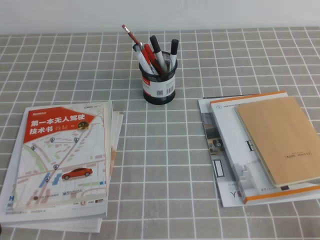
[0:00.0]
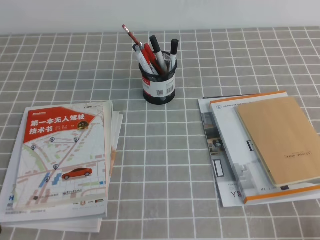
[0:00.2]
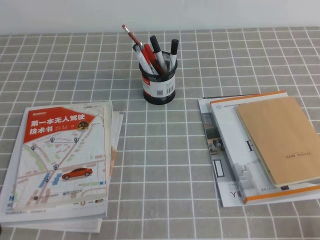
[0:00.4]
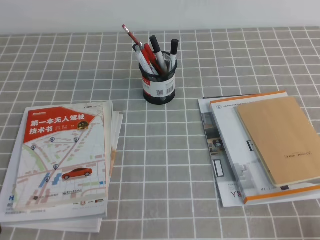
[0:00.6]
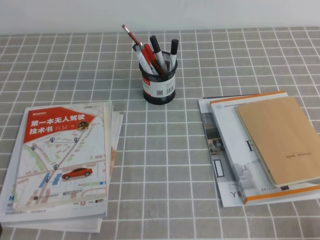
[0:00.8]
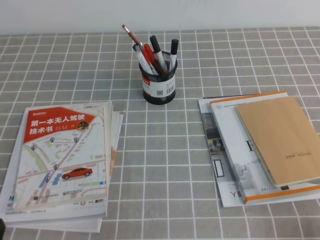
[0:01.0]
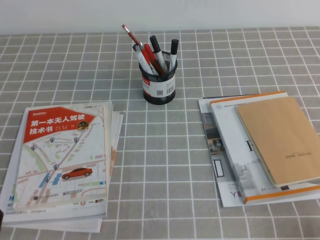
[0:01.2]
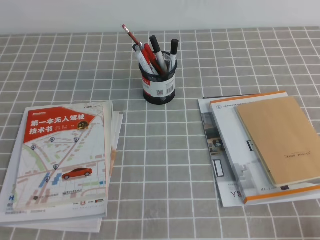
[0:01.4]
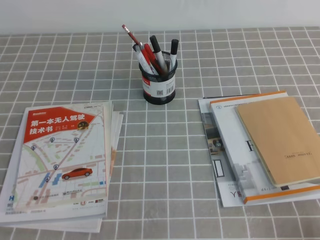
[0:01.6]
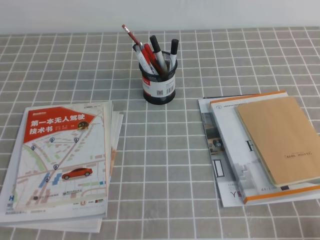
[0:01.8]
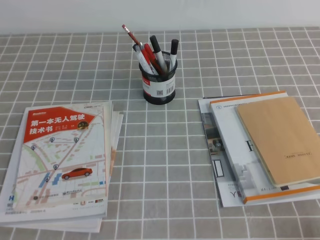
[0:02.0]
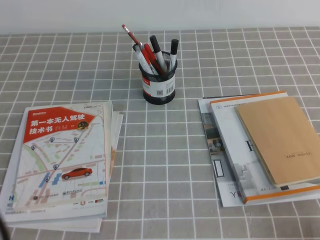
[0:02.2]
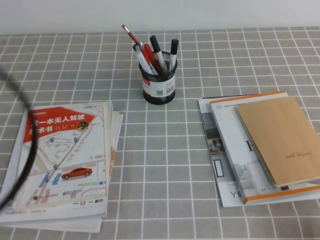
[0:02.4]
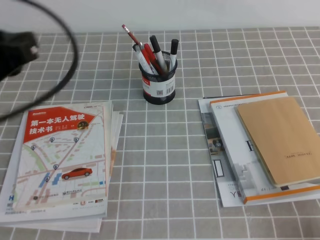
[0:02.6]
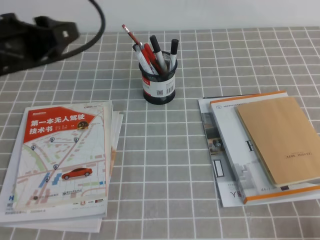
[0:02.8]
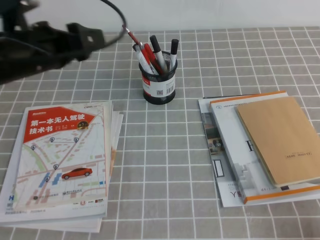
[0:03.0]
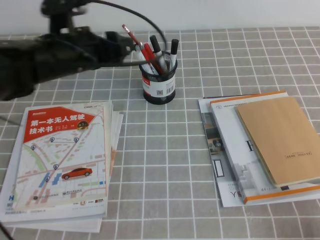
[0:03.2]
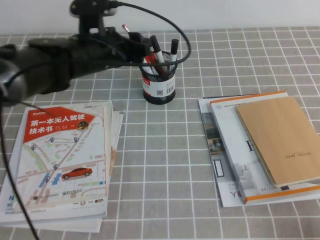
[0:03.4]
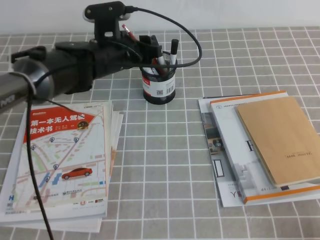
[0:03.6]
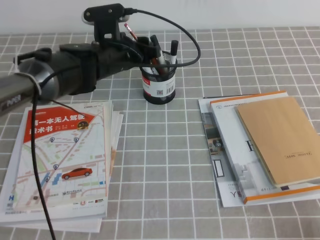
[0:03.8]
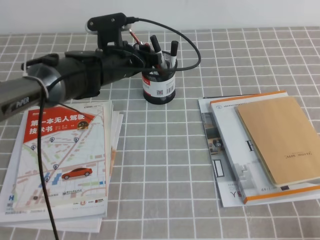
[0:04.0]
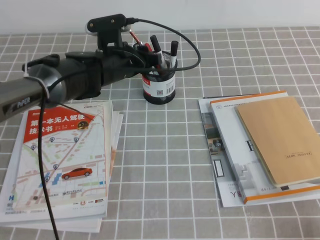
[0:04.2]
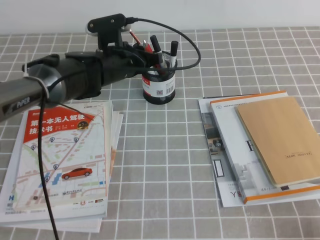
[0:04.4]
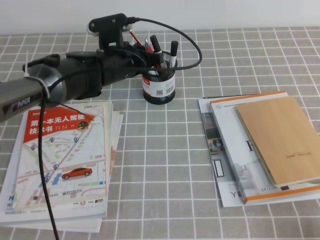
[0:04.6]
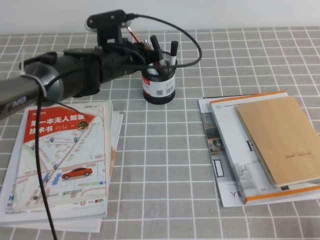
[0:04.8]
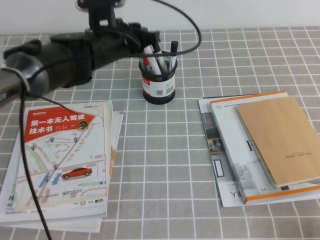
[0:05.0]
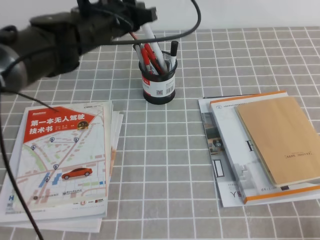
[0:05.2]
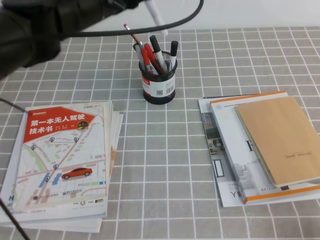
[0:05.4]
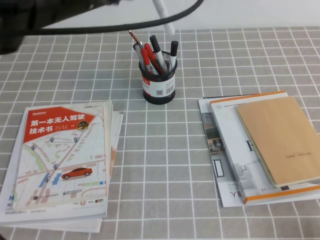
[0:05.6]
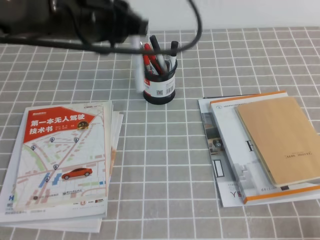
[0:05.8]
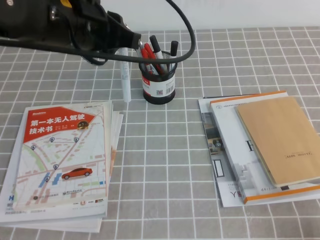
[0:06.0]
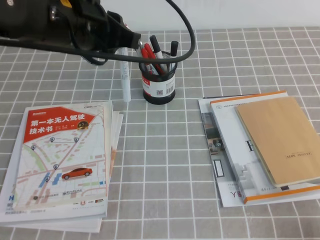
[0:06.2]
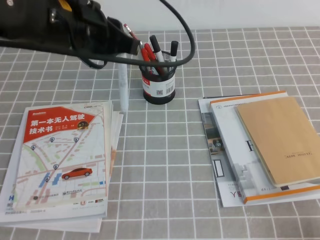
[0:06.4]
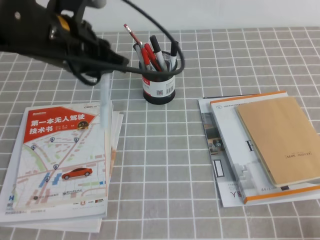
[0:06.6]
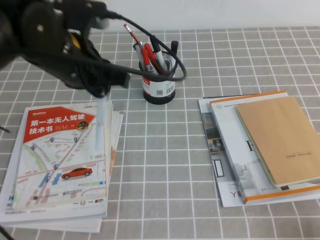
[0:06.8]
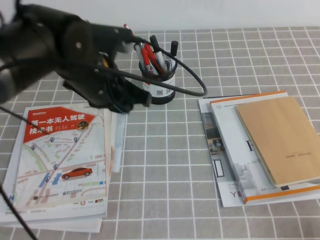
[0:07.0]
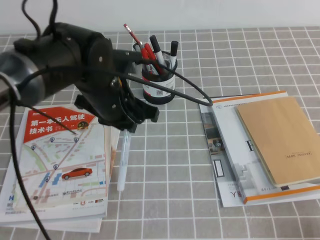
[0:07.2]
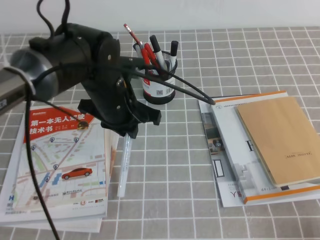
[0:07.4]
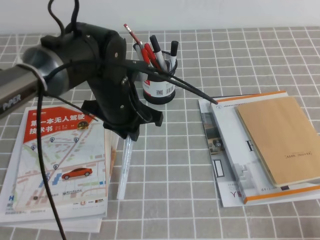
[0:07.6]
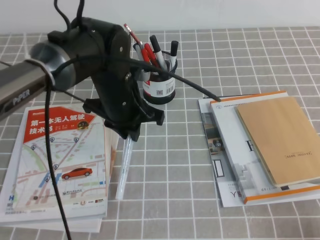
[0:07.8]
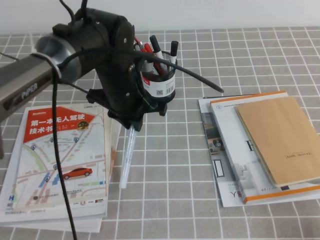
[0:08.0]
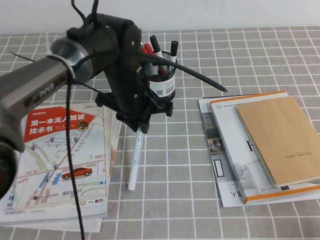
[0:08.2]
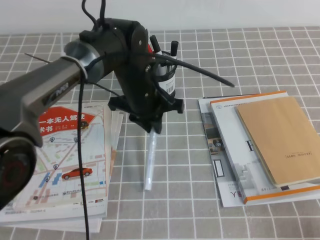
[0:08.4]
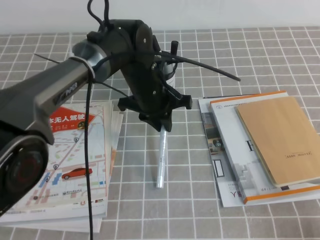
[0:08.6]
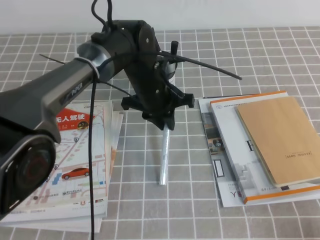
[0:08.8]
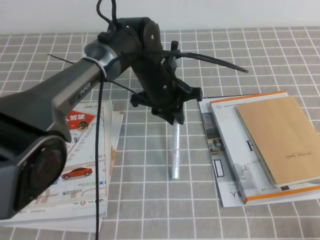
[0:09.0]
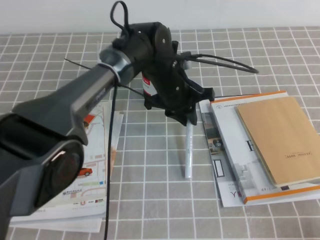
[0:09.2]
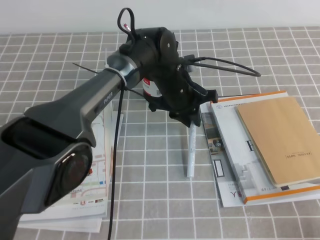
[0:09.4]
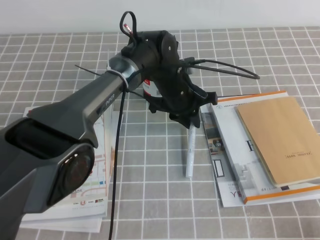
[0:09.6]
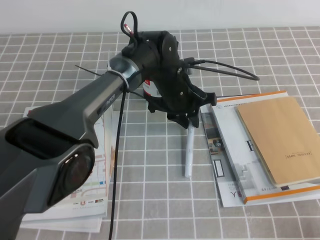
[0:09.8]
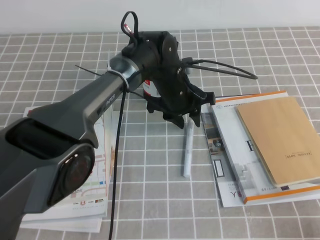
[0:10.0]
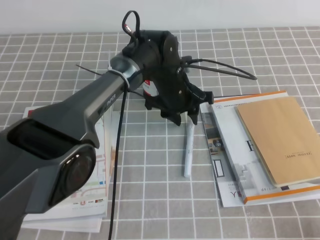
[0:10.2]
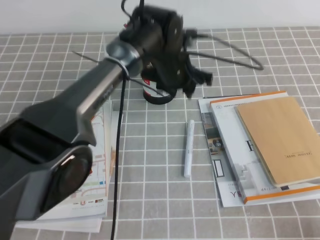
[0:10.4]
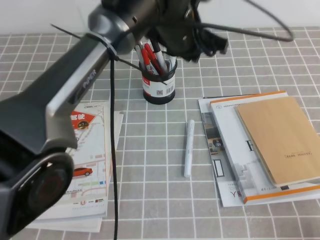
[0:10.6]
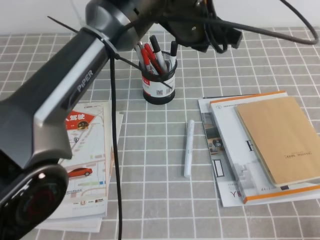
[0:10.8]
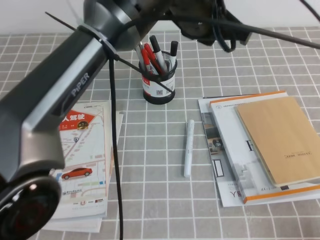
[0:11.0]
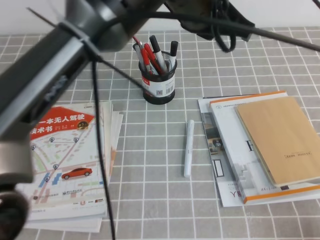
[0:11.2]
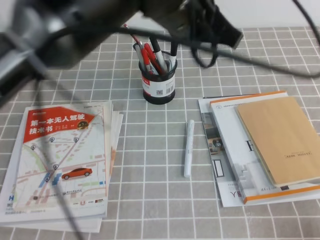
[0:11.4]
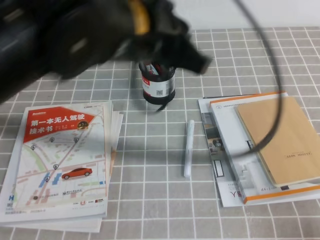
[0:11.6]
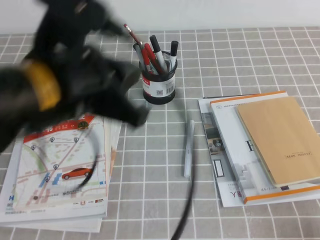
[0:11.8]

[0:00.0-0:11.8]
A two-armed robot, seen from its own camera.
0:01.4 to 0:03.0: The left gripper is displaced forward and upward by about 30 cm, and opens its fingers.
0:03.0 to 0:04.4: The left gripper heads to the right, downward and forward, covering about 15 cm, and closes up.
0:04.4 to 0:06.0: The left gripper is displaced upward and backward by approximately 20 cm.
0:06.0 to 0:07.4: The left gripper heads downward, covering approximately 15 cm.
0:07.4 to 0:08.8: The left gripper travels forward and to the right by about 10 cm.
0:08.8 to 0:10.4: The left gripper ends up about 5 cm from where it was.
0:10.4 to 0:11.8: The left gripper goes approximately 30 cm backward, upward and to the left, and closes.

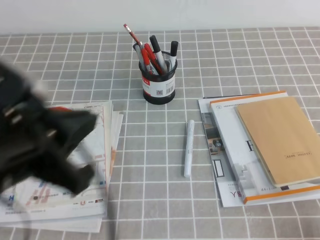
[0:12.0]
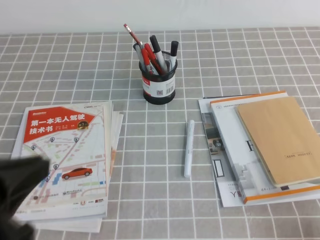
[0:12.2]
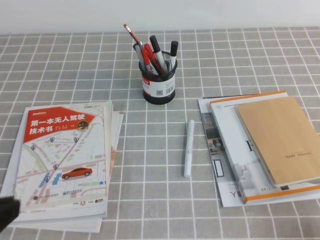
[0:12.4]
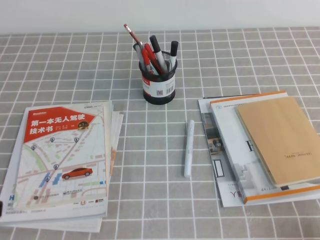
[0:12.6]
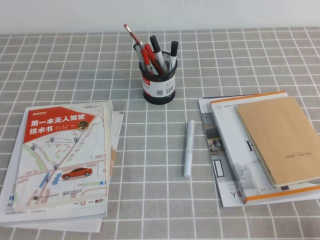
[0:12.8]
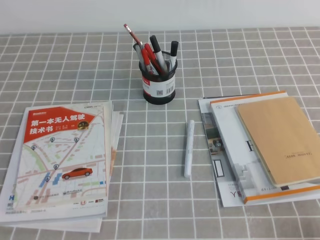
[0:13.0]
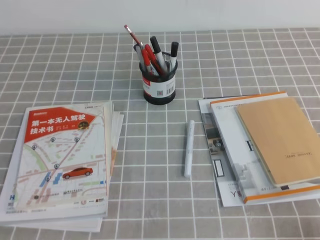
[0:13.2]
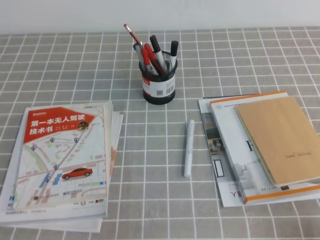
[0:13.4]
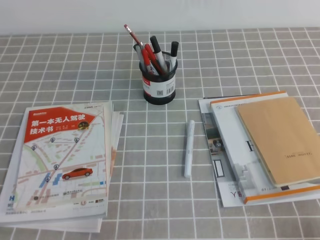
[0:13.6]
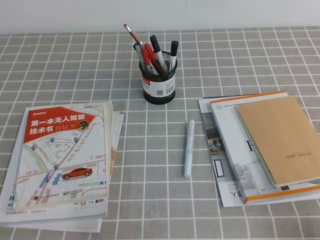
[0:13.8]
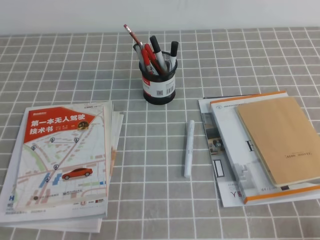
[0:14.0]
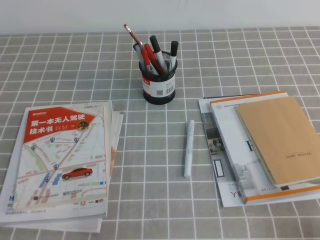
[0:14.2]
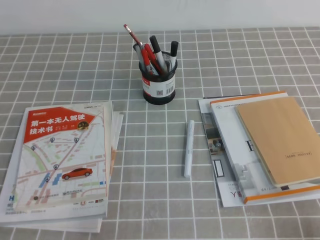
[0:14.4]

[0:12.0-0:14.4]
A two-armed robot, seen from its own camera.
Step, 0:12.0 to 0:14.4: Pick up the pen from the pen holder.
0:12.0 to 0:13.2: The left gripper shifts roughly 20 cm downward, to the left and backward.
0:13.2 to 0:14.4: The left gripper moves downward, approximately 5 cm.
